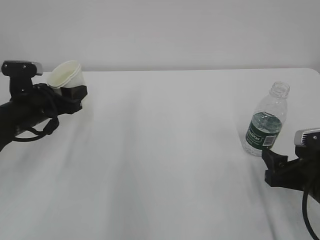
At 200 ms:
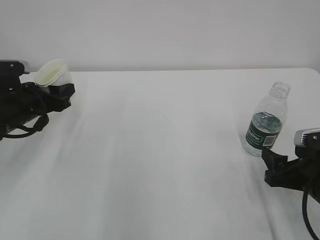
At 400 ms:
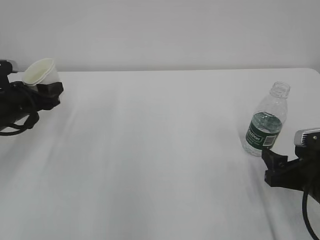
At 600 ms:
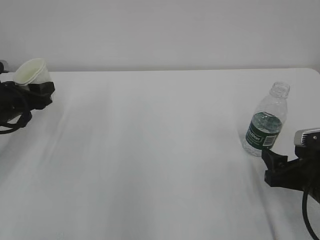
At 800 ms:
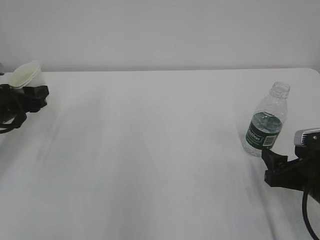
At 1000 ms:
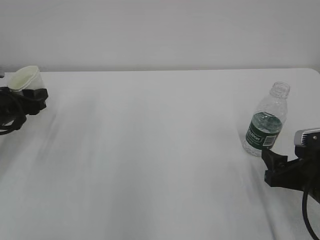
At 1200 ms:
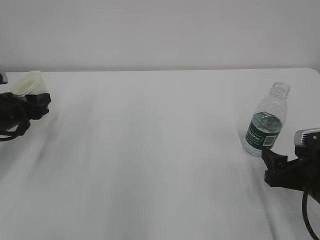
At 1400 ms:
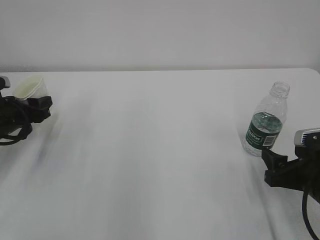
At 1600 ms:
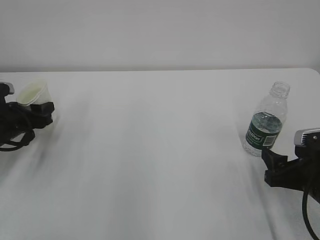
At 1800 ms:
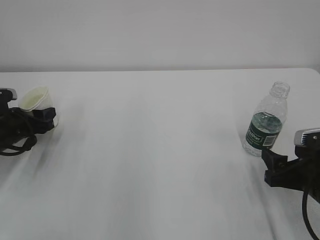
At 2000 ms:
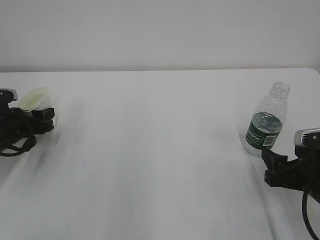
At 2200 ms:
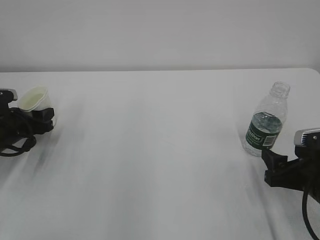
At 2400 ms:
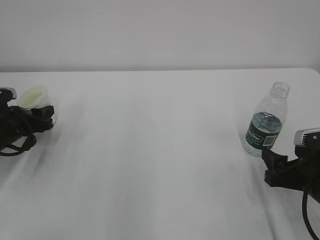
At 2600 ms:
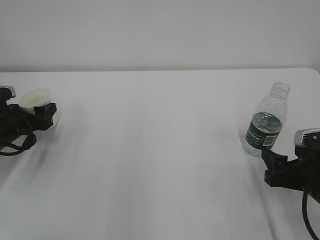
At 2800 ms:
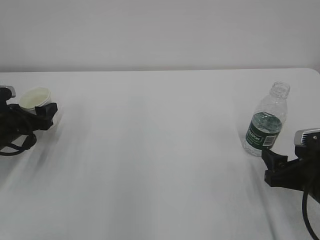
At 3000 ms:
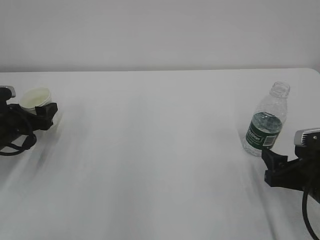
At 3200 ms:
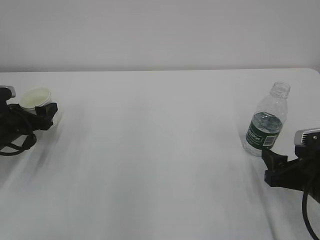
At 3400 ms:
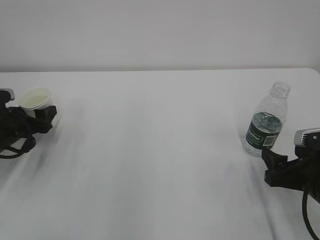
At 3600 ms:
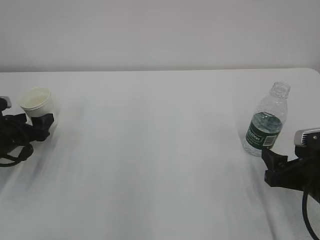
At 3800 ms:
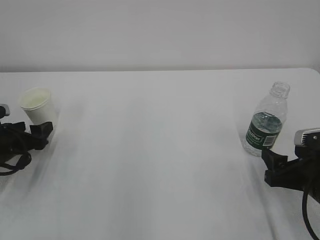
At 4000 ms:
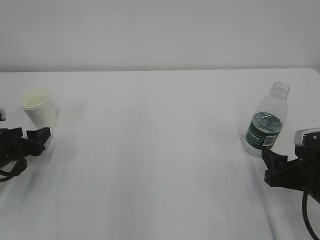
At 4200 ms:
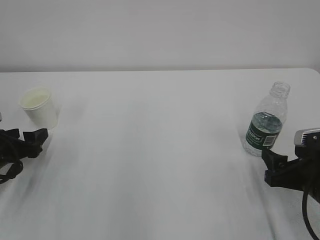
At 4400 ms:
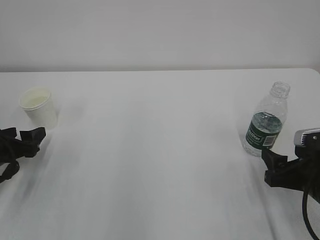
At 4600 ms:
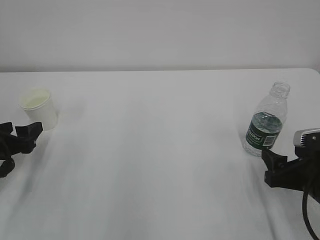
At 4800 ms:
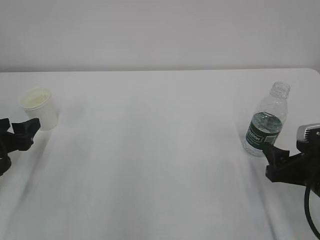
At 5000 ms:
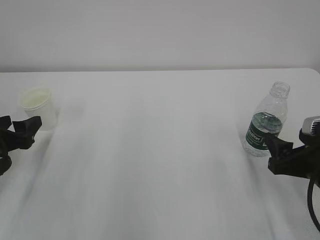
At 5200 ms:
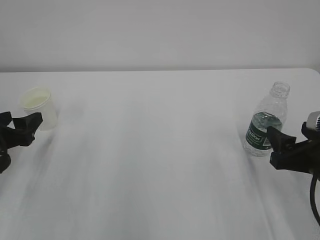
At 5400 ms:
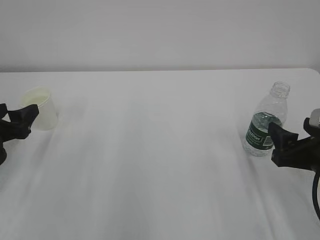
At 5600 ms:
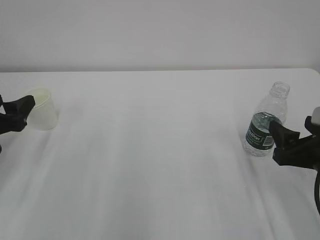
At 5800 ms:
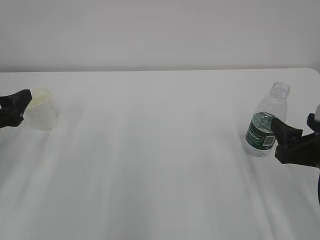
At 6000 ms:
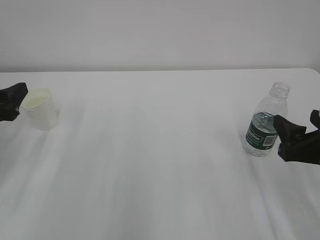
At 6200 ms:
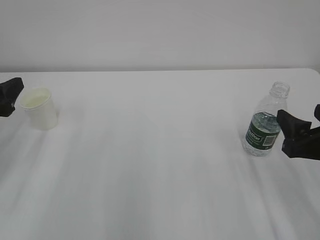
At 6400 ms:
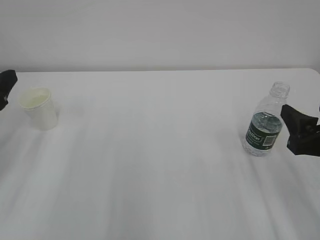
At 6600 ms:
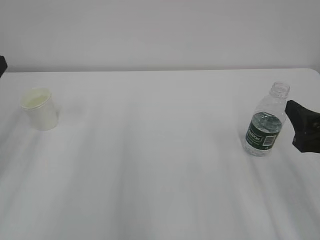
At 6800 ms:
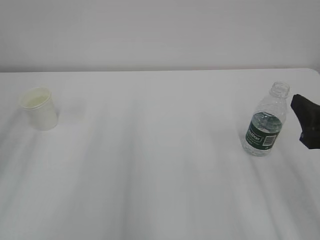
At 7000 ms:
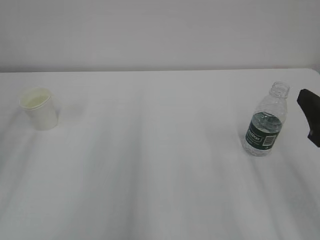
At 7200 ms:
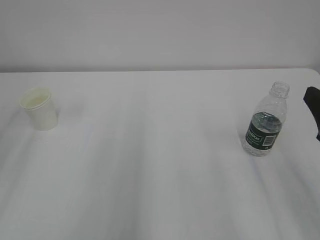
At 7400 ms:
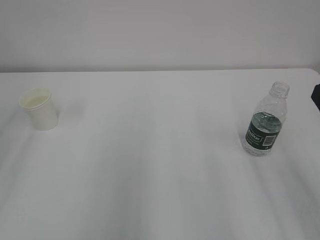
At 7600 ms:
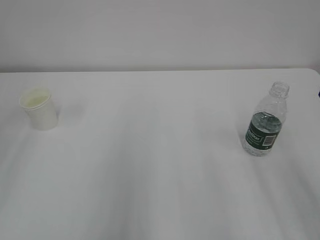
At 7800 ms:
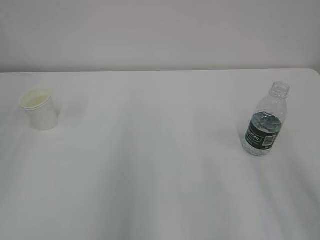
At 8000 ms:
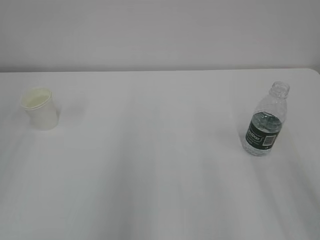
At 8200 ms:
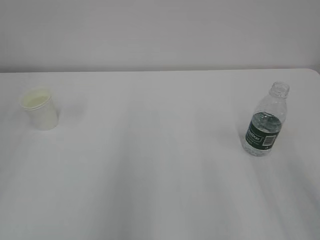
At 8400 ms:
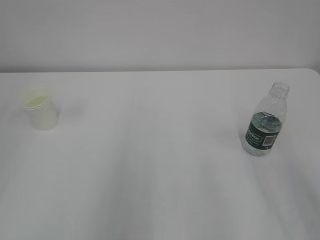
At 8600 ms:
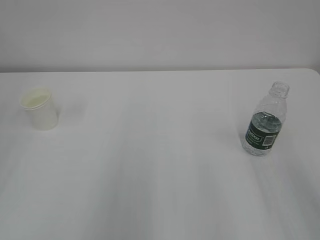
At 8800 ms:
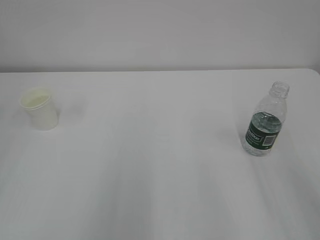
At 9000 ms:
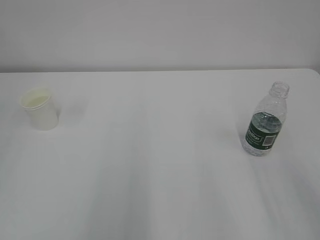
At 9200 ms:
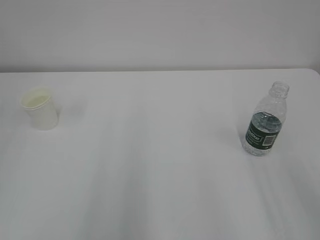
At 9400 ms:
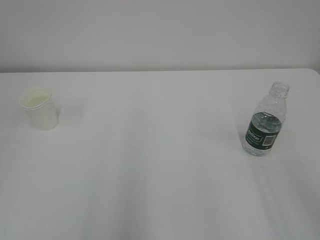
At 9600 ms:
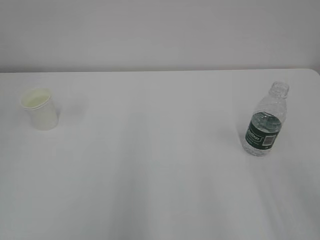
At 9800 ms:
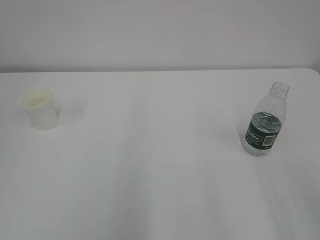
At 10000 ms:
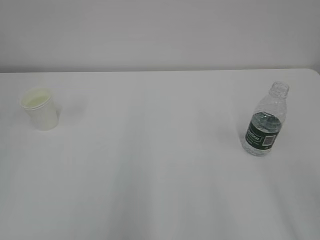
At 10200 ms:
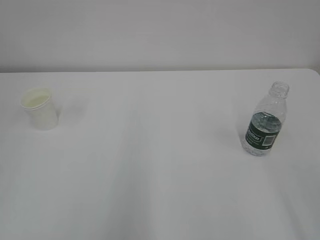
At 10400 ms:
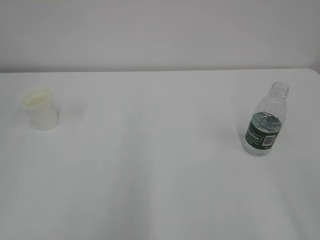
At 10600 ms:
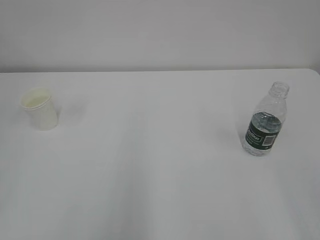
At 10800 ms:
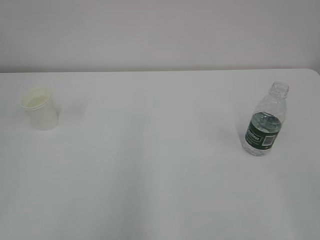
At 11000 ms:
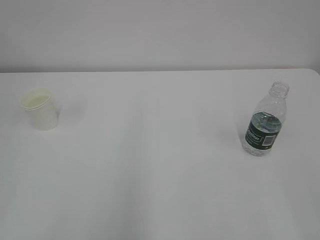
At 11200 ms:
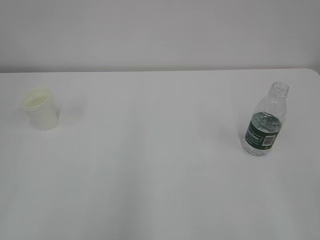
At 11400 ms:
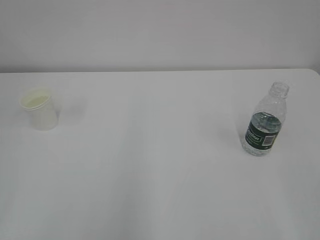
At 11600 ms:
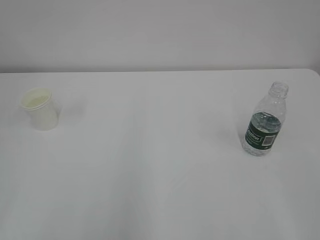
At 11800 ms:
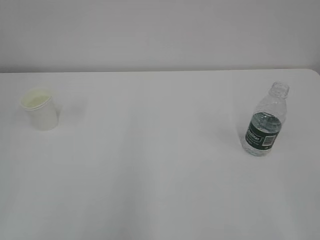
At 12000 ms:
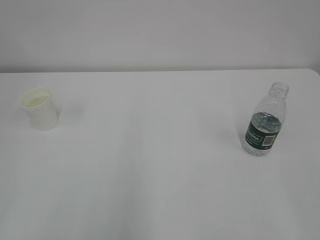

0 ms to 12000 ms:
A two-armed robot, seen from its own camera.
0 ms to 1600 ms: The left gripper moves to the left, some 5 cm.
1600 ms to 3000 ms: The left gripper opens.
3000 ms to 4400 ms: The left gripper travels backward by roughly 5 cm.
4400 ms to 6000 ms: The left gripper heads upward, covering roughly 10 cm. Meanwhile the right gripper travels upward by about 5 cm.
6000 ms to 7600 ms: The left gripper heads upward and backward, covering approximately 15 cm. Meanwhile the right gripper shifts some 10 cm upward and backward.

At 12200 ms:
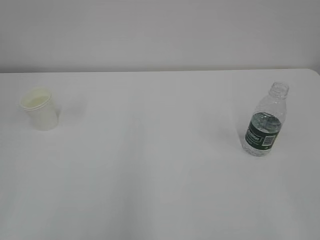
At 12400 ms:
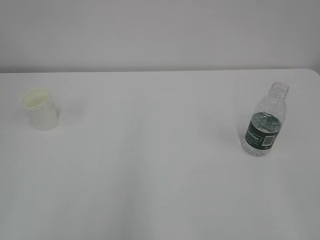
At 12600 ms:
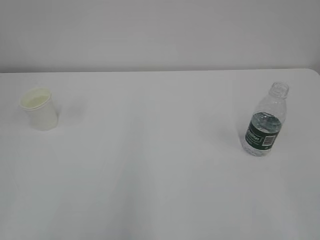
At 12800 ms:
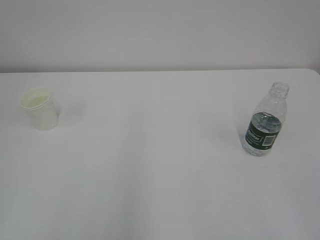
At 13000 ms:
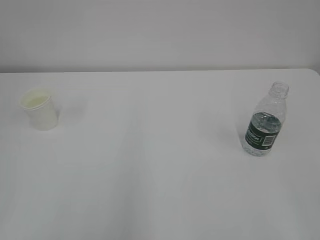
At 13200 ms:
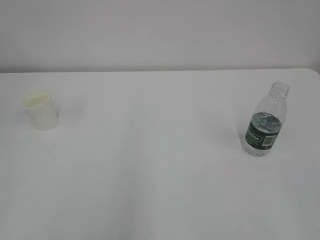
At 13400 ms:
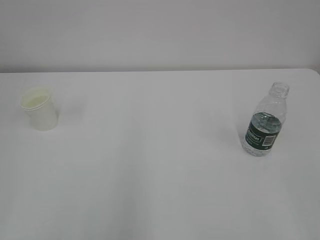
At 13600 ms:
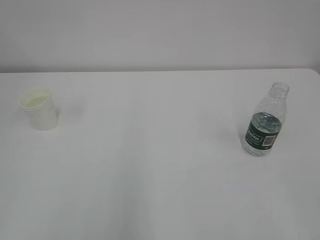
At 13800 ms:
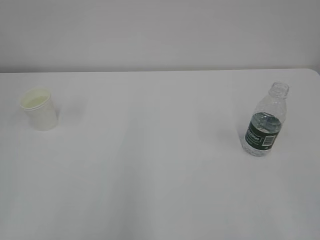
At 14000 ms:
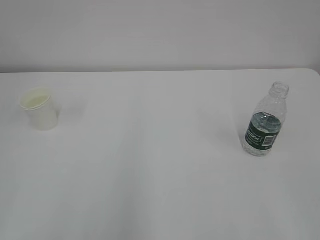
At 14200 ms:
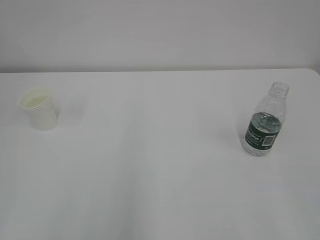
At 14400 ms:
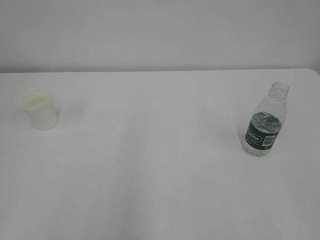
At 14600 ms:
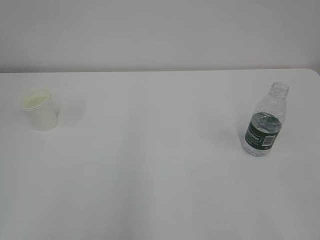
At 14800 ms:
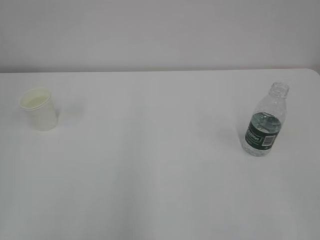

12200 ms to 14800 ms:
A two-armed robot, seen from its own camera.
12200 ms to 13400 ms: Both grippers stay about where they are.
13400 ms to 14800 ms: The two grippers keep their place.
